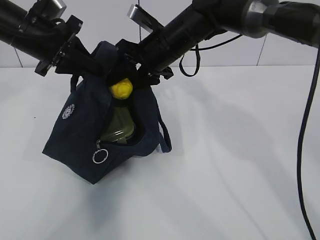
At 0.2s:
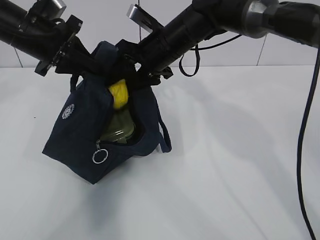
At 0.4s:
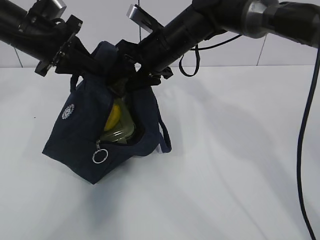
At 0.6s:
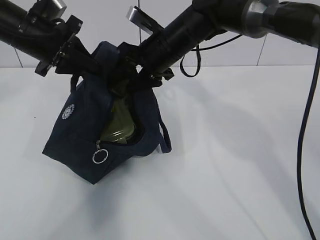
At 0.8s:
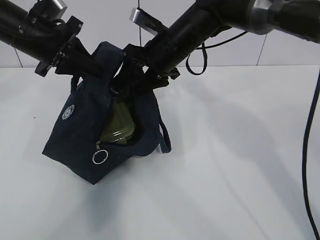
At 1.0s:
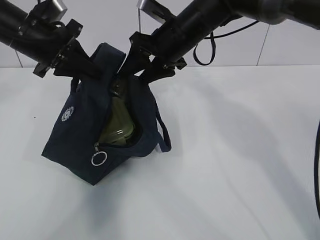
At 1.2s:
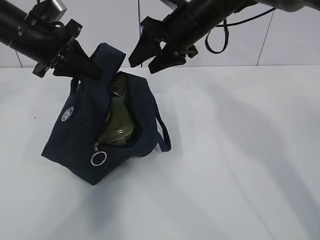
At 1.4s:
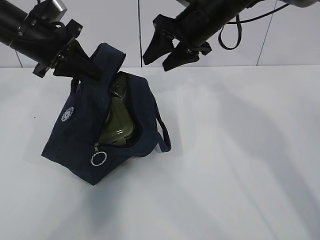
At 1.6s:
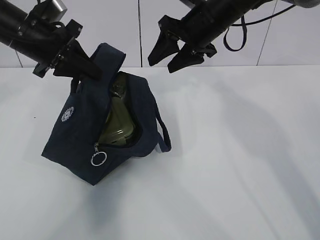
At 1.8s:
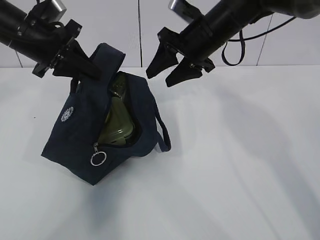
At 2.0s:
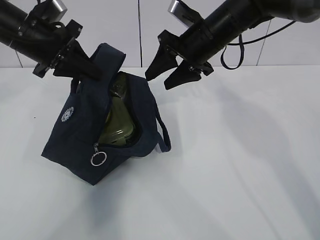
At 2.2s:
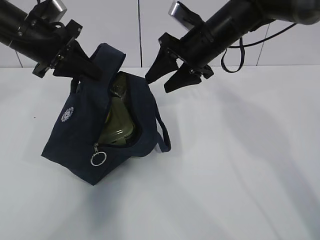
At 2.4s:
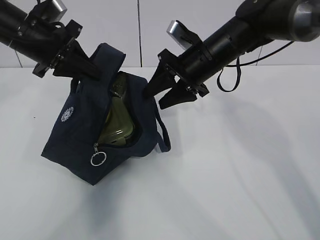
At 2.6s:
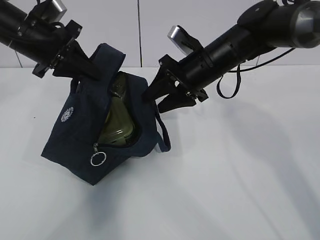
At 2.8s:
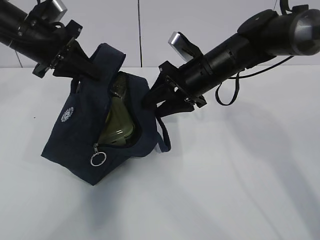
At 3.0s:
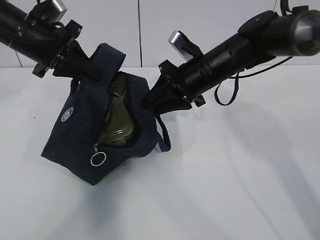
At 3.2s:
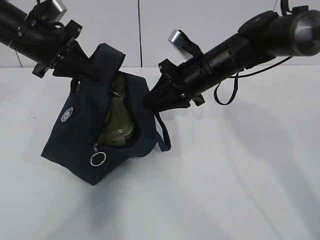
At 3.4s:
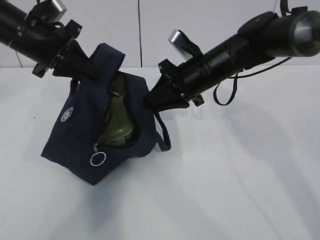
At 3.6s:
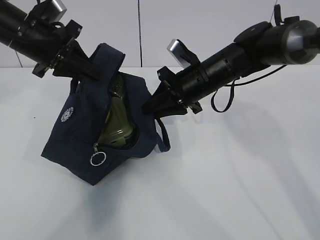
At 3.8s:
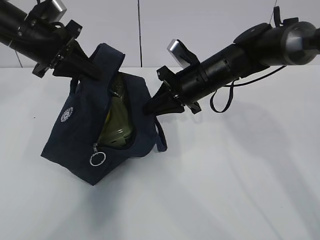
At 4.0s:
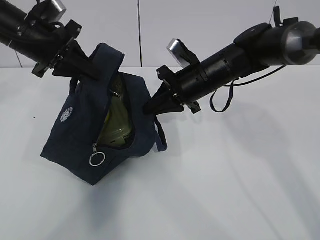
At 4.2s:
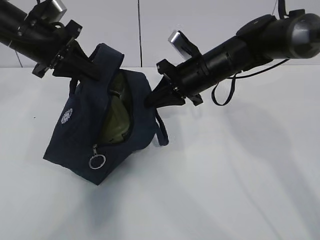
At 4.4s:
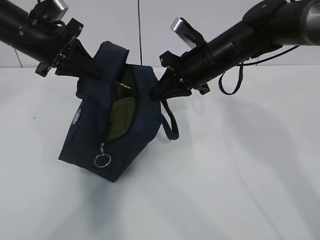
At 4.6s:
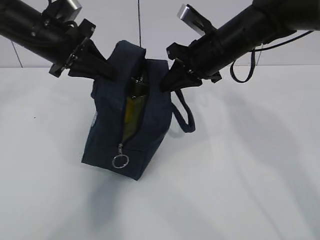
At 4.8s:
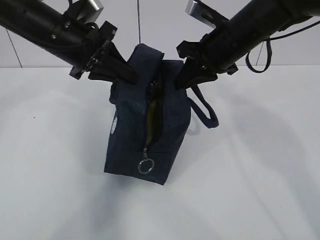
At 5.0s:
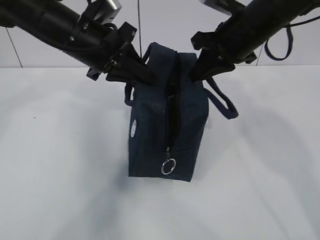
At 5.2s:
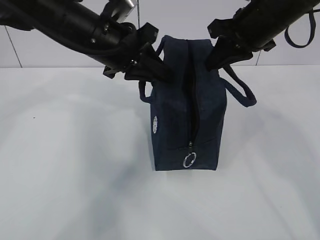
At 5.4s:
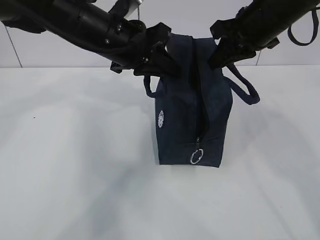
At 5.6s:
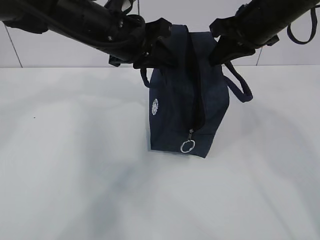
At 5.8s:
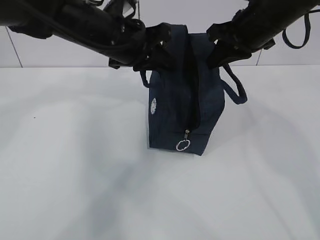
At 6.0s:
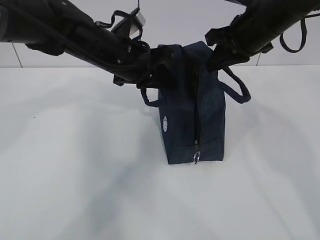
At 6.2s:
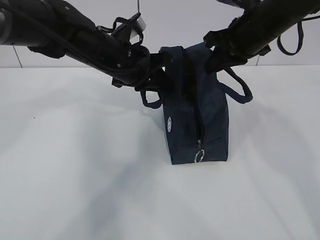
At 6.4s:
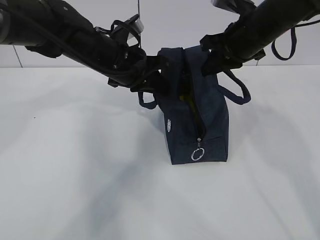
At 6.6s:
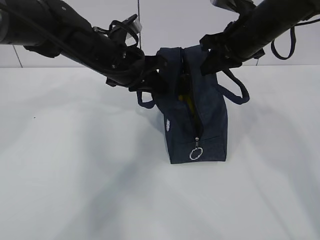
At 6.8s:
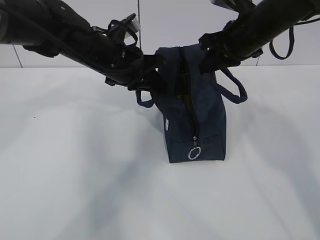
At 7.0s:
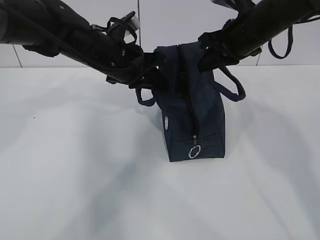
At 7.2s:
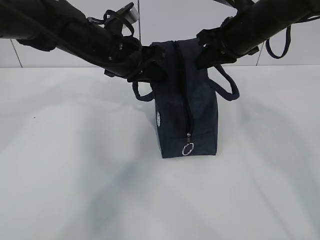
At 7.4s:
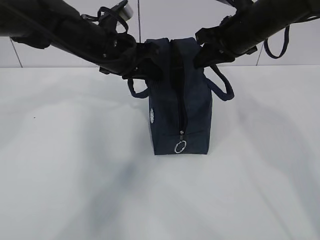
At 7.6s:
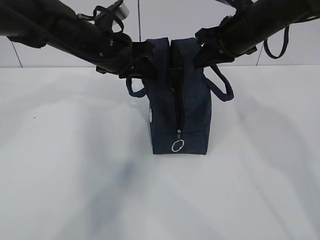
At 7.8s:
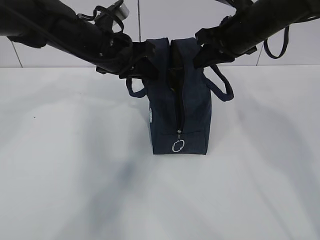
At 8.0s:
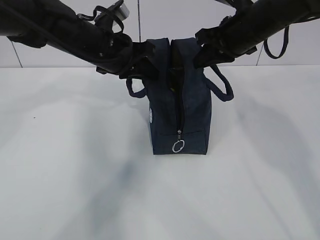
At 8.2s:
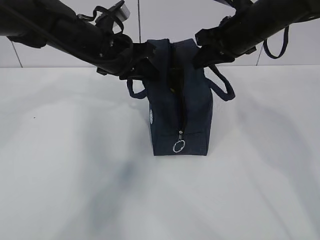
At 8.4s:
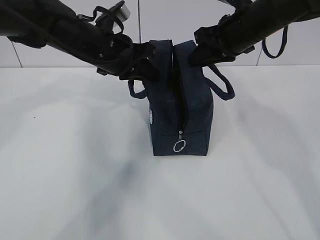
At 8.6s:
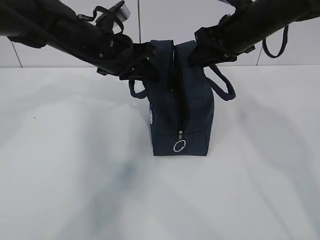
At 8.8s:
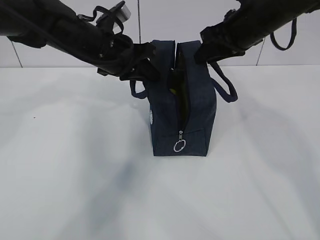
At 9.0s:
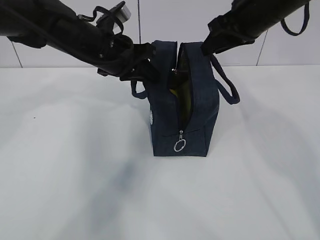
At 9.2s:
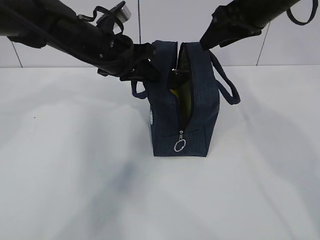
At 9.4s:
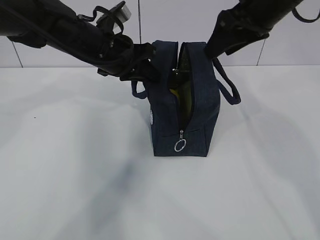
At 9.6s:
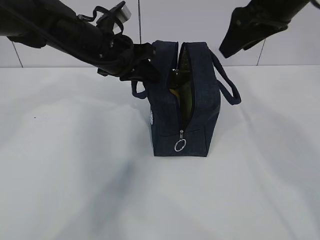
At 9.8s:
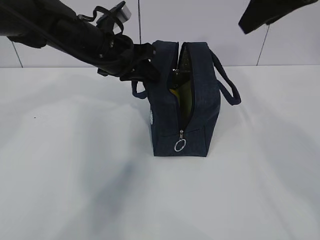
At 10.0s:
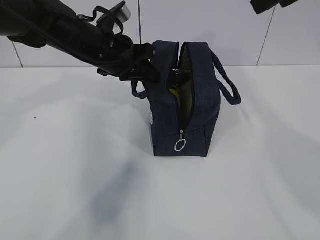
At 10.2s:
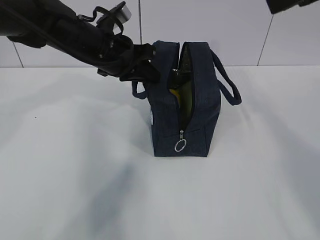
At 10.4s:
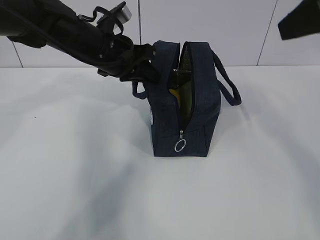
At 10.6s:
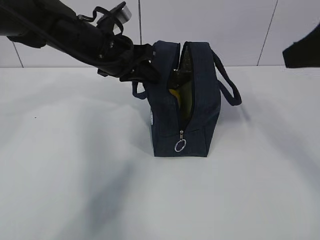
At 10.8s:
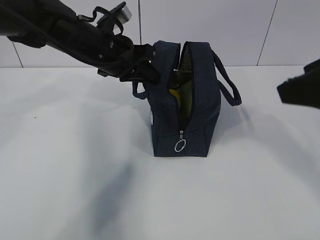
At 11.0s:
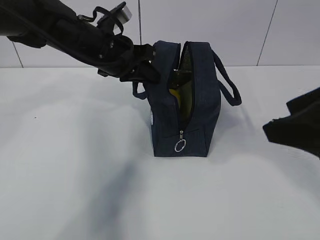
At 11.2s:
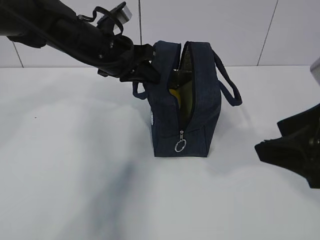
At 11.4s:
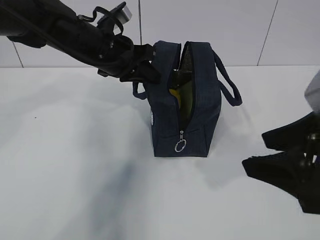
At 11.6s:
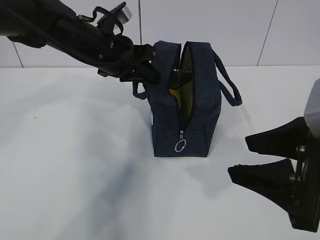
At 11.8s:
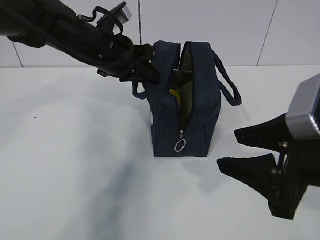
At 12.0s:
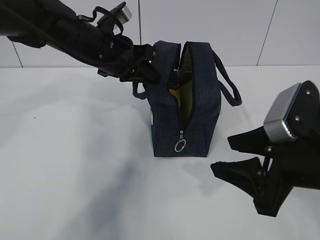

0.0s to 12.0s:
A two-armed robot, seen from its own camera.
Step, 0.0s to 12.0s: Grab the lunch bag with your left hand.
0.0s to 1.6s: The right gripper is displaced to the right by some 5 cm.
1.6s to 3.0s: The right gripper goes some 10 cm downward.
3.0s to 4.4s: The right gripper closes up.
4.4s to 6.0s: The left gripper goes some 15 cm to the right, while the right gripper goes about 10 cm upward and to the right.
6.0s to 7.6s: There are only small adjustments of the grippers.
7.6s to 9.0s: The right gripper opens its fingers.
9.0s to 10.4s: The right gripper heads backward and upward, covering approximately 20 cm.
10.4s to 12.0s: The right gripper shifts roughly 20 cm downward.

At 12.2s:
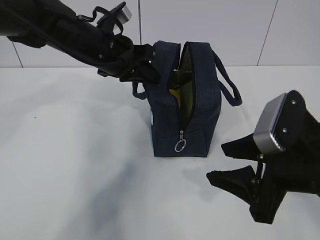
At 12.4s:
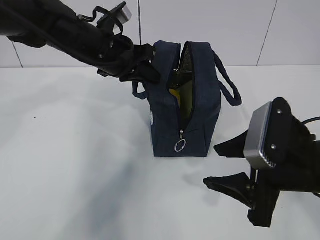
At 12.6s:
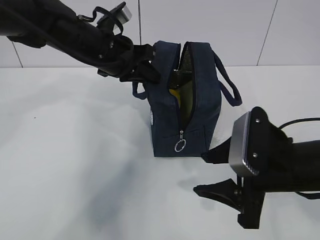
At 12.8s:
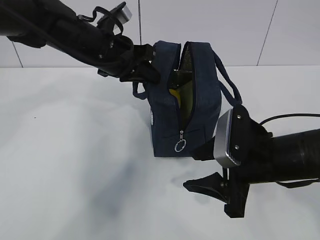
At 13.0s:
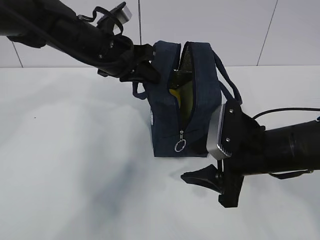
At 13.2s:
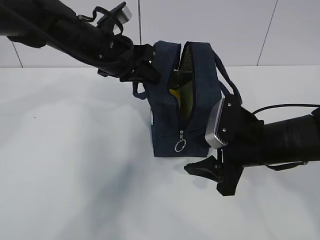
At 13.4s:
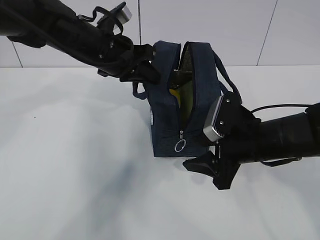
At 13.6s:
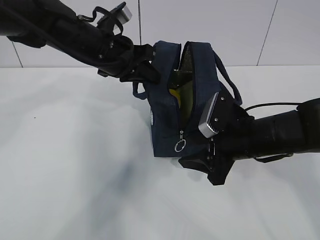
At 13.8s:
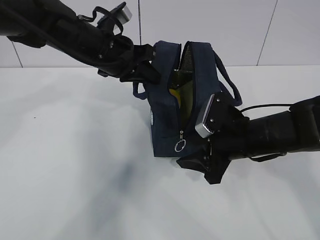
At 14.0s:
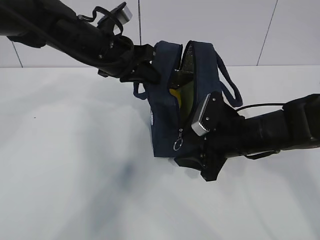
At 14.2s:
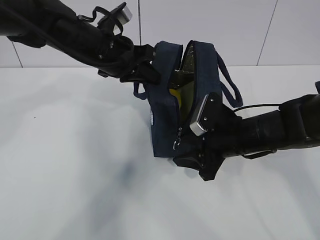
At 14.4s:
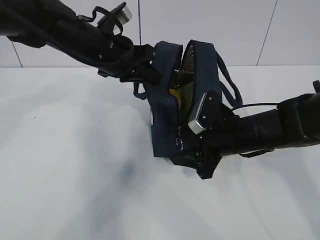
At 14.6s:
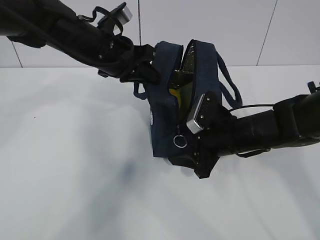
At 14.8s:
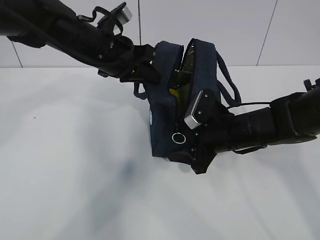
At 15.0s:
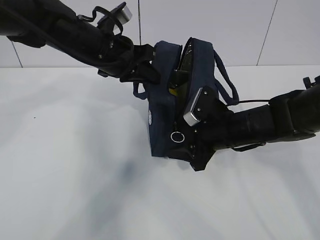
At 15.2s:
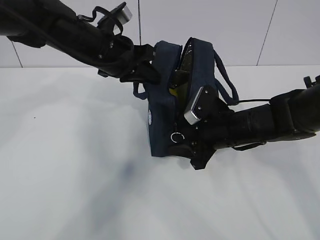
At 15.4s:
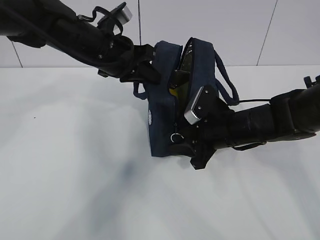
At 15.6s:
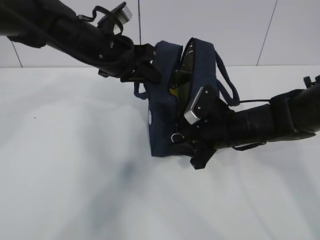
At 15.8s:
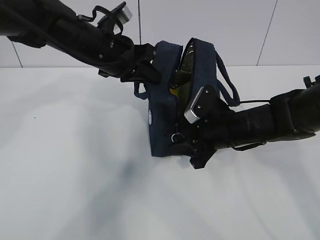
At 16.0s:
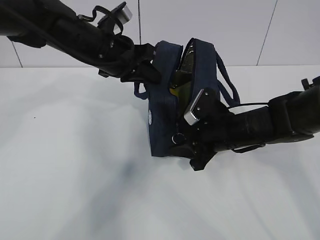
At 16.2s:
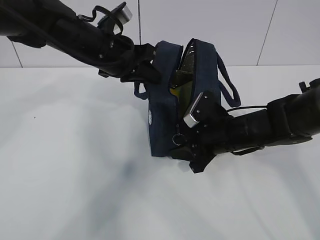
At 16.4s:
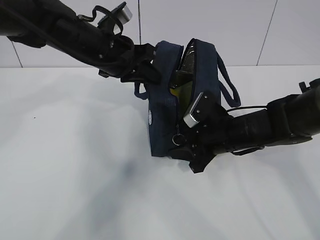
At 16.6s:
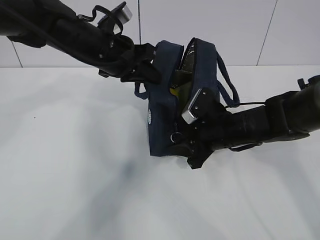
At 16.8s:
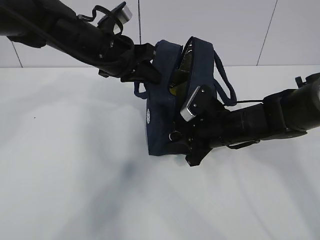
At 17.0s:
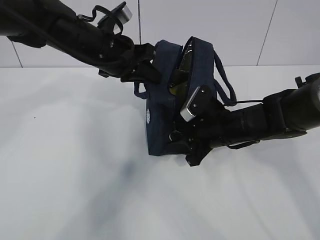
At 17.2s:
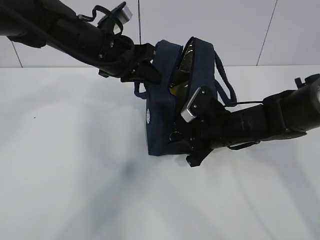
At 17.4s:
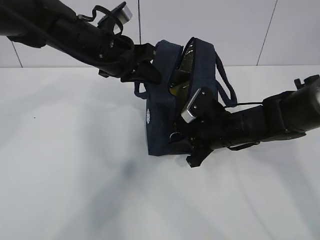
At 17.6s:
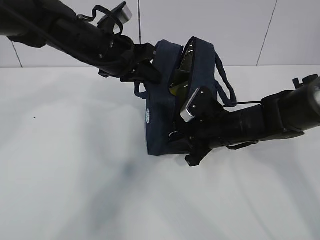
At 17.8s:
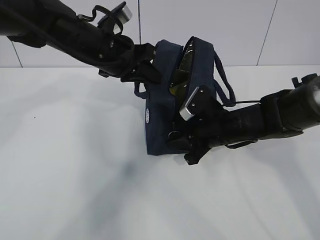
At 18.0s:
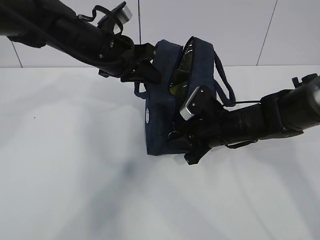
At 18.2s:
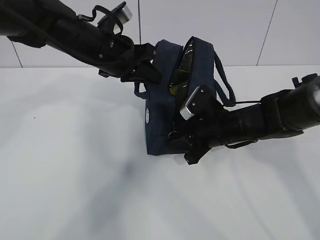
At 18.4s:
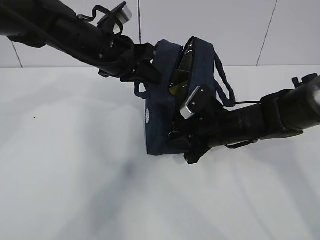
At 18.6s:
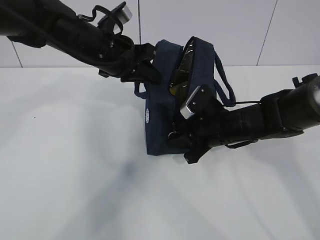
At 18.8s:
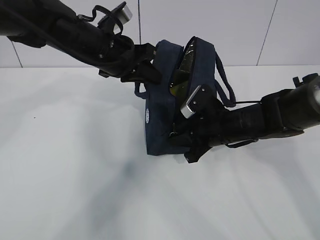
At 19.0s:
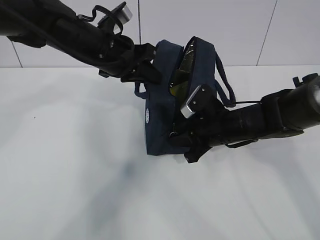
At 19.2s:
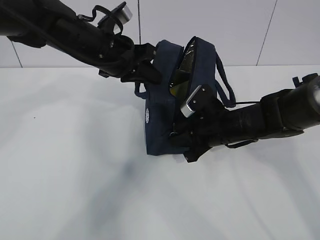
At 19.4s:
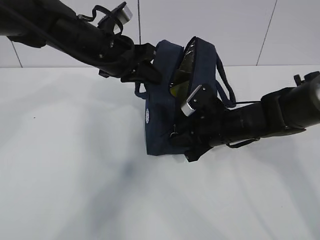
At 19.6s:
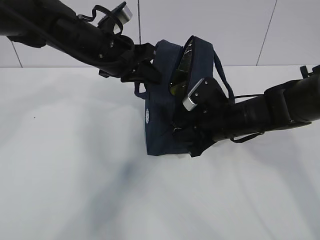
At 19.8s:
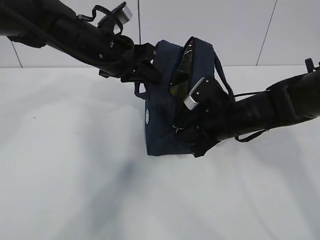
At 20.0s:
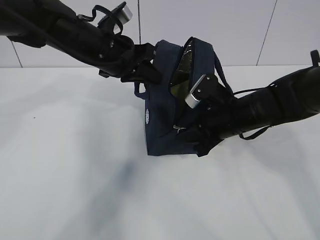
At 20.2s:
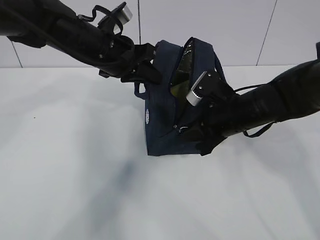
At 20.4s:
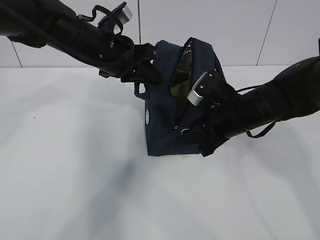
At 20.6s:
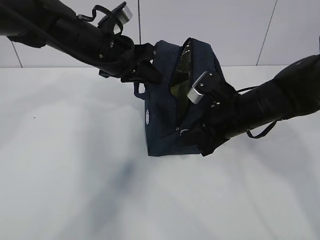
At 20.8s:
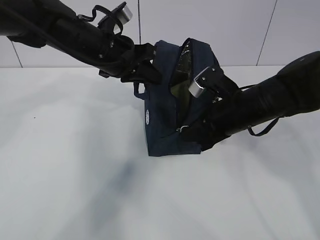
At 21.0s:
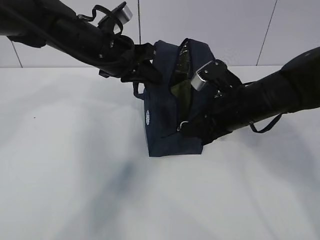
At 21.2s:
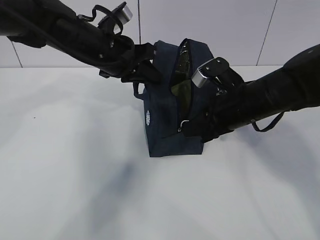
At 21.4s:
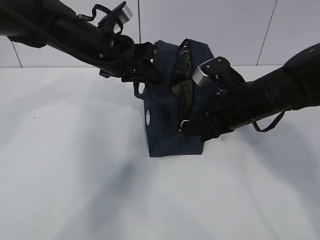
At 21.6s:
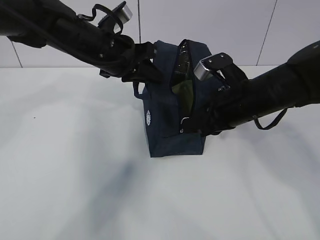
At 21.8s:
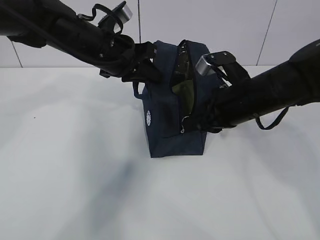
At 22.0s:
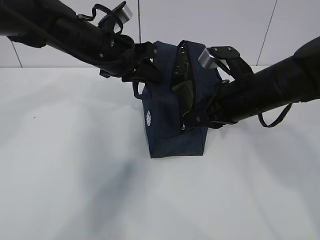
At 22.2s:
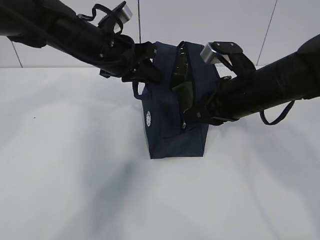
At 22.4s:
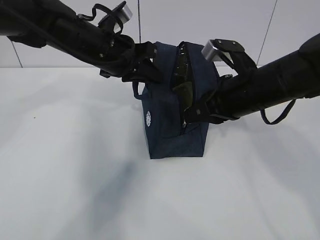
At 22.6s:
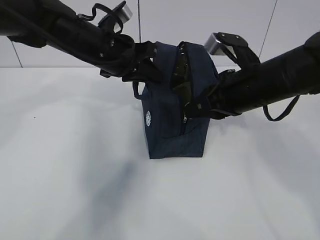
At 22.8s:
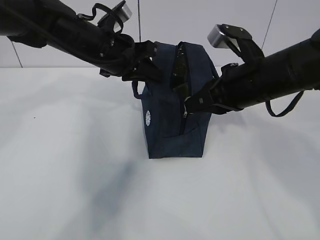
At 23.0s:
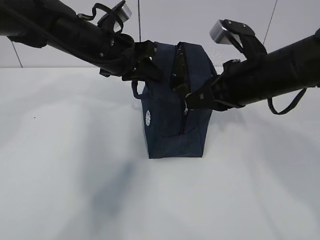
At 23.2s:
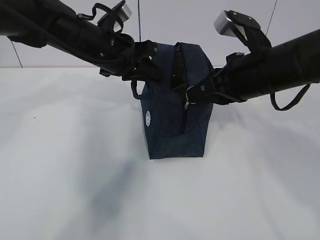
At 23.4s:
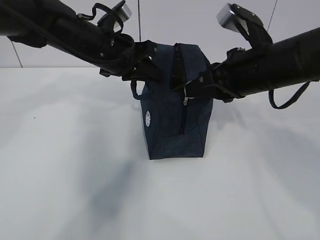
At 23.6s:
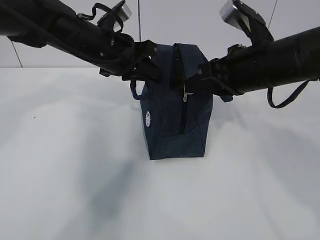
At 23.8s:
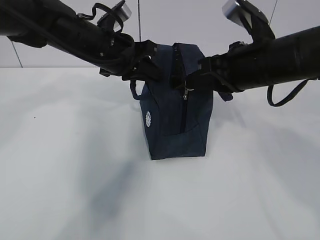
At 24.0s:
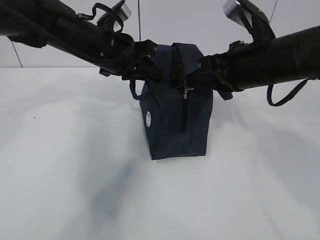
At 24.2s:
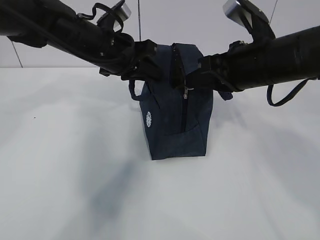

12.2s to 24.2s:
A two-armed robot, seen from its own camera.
Step, 12.2s to 20.6s: Pull the zipper with your right hand.
12.2s to 13.8s: The right gripper shifts about 15 cm forward and downward.
13.8s to 15.2s: There are only small adjustments of the grippers.
15.2s to 16.6s: Both grippers stay put.
16.6s to 18.2s: Both grippers stay about where they are.
18.2s to 19.8s: The grippers make only small movements.
19.8s to 21.2s: The right gripper shifts about 5 cm upward.
21.2s to 22.6s: There are only small adjustments of the grippers.
22.6s to 24.2s: The grippers move only a little.
